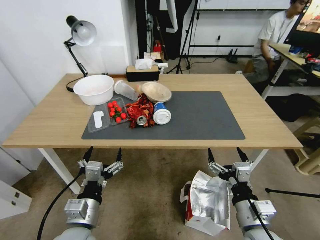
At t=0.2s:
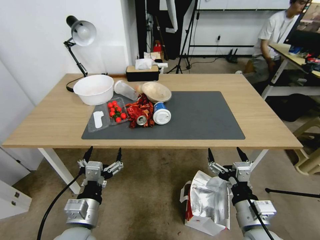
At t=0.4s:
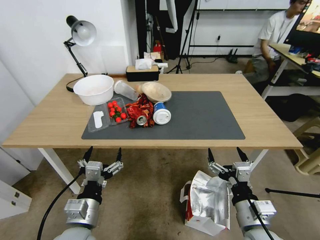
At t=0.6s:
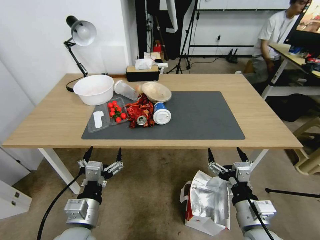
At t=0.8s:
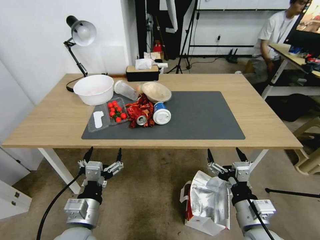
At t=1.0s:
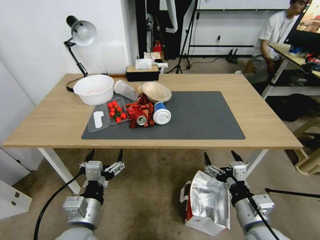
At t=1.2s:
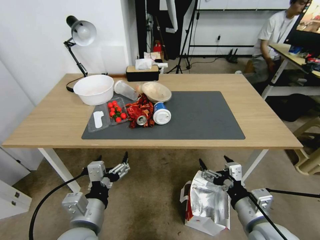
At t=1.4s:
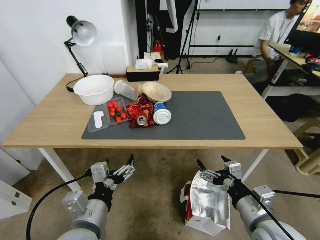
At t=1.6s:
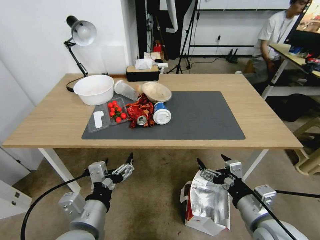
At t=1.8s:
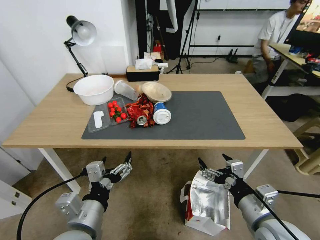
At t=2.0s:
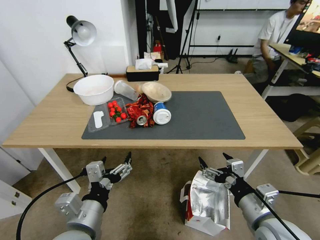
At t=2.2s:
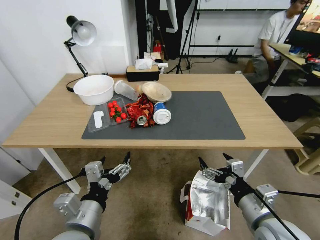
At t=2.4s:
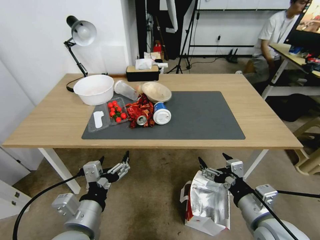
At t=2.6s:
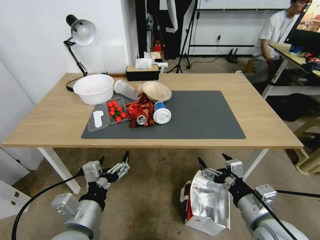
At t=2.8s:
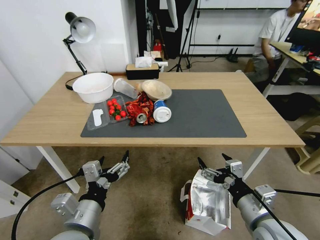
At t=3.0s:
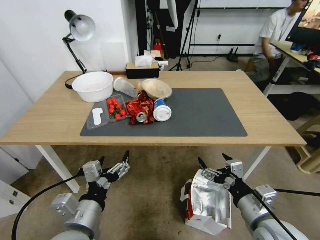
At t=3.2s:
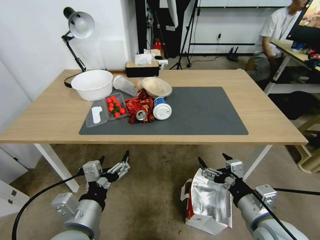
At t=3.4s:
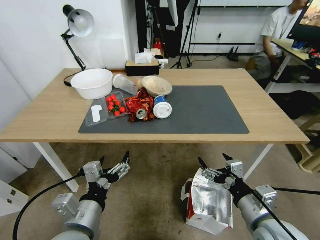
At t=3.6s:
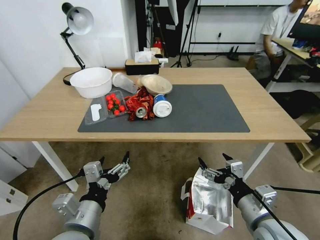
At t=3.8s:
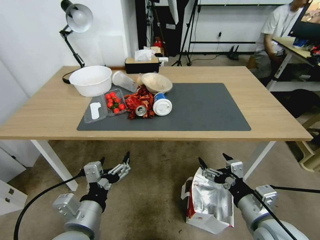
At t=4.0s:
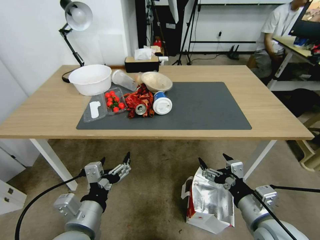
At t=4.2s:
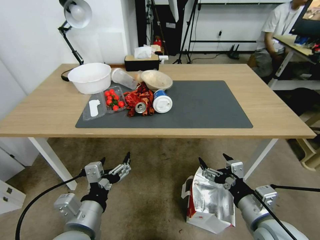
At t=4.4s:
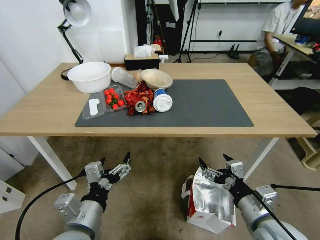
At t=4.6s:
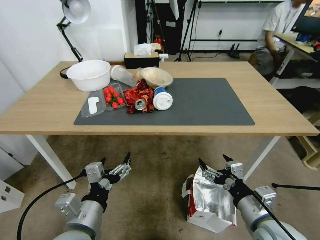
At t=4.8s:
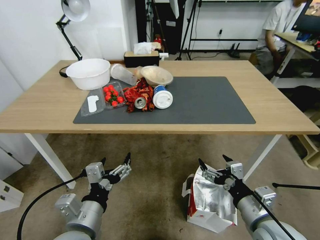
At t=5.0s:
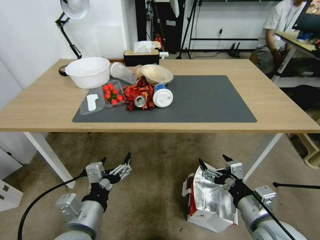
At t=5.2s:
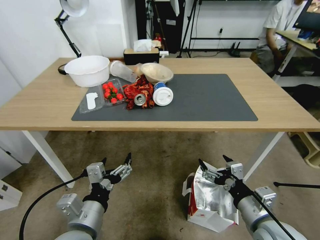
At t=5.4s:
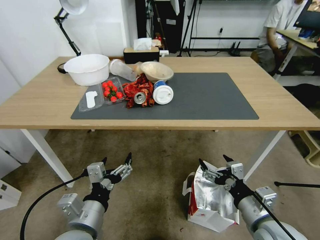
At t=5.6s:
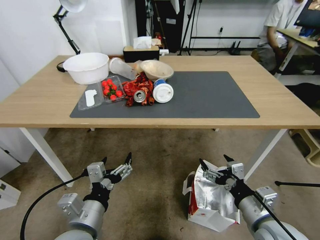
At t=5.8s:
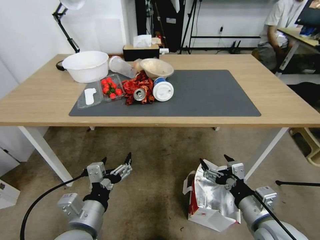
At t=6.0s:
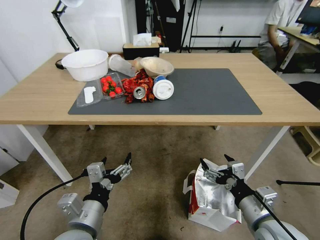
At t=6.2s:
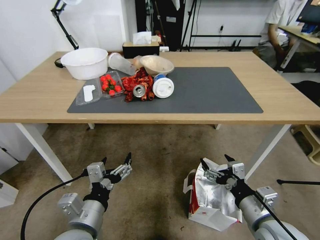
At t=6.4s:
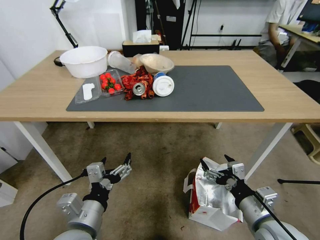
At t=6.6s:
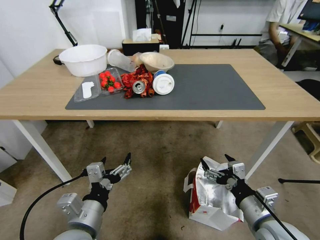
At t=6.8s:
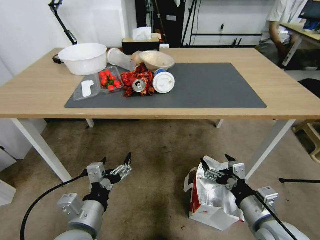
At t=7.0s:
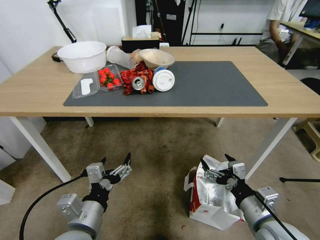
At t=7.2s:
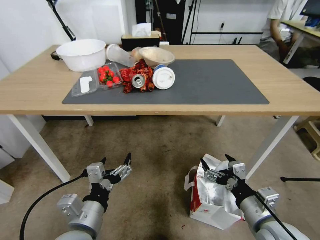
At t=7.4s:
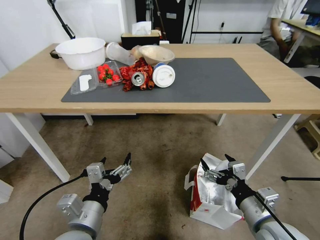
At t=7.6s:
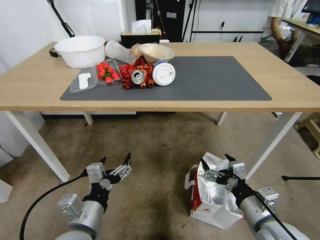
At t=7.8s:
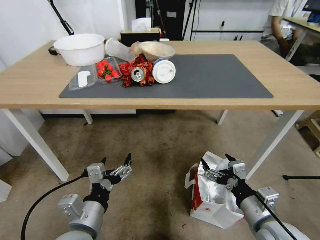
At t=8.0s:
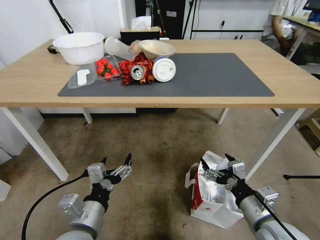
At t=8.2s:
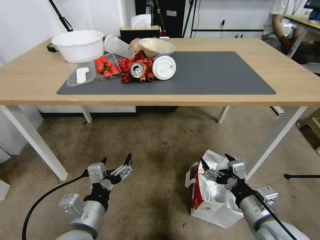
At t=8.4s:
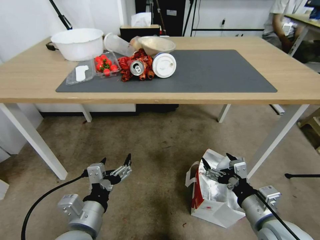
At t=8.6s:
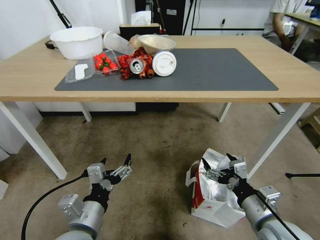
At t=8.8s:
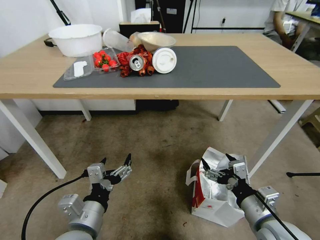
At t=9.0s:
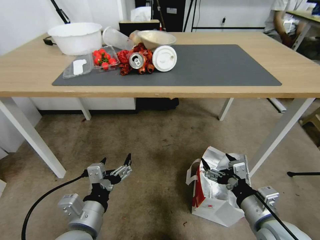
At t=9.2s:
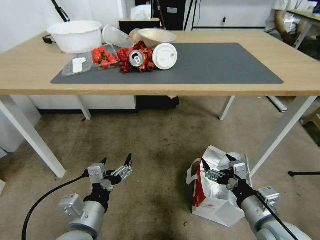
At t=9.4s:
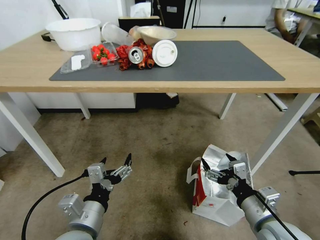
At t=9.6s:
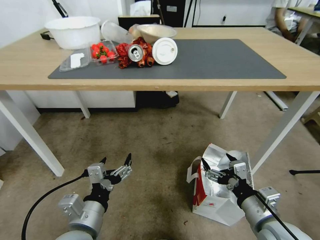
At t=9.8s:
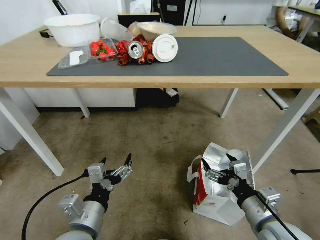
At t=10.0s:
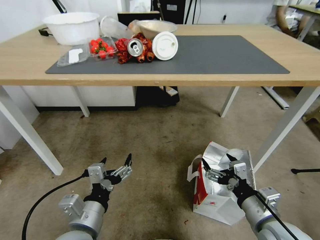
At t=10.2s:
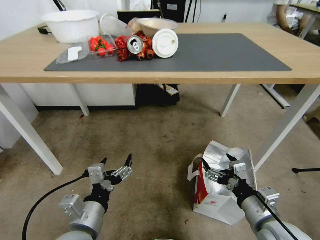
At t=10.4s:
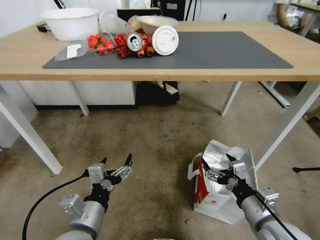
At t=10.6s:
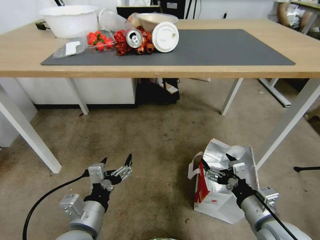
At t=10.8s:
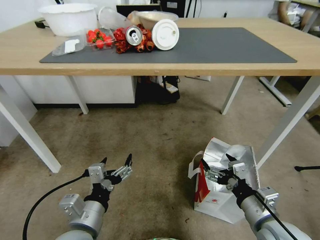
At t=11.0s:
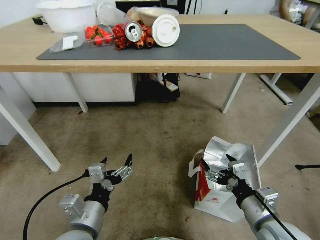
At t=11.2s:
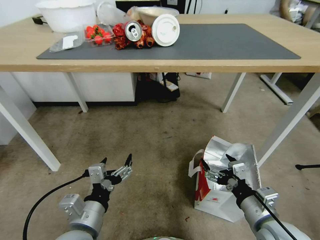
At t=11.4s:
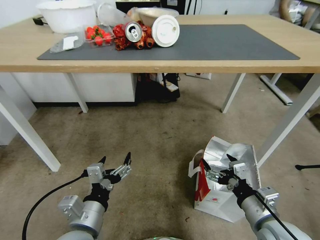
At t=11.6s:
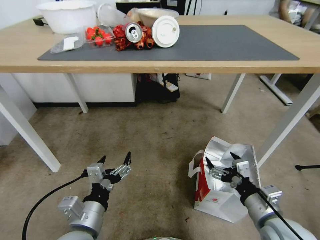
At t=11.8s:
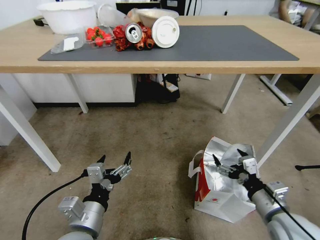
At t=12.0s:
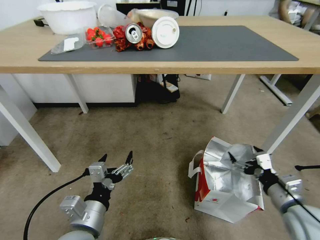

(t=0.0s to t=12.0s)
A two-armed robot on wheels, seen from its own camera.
Task of the whole recording: Pick up the food delivery bag from the floor and place it on the table.
t=10.4s - t=12.0s: The right gripper goes some 10 cm to the right.

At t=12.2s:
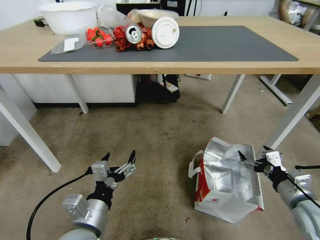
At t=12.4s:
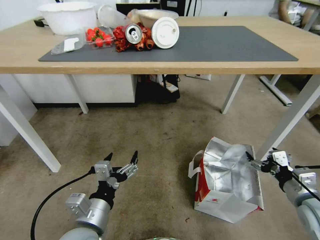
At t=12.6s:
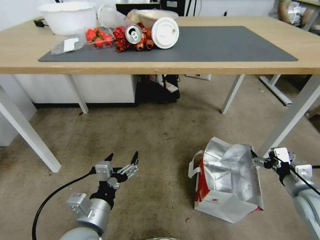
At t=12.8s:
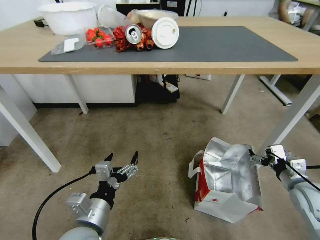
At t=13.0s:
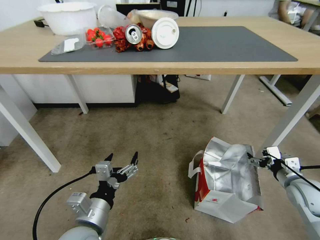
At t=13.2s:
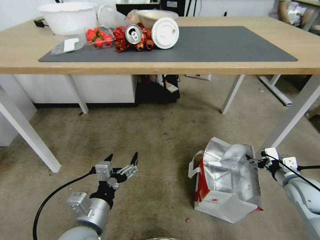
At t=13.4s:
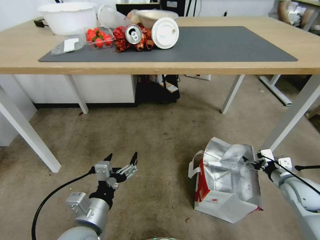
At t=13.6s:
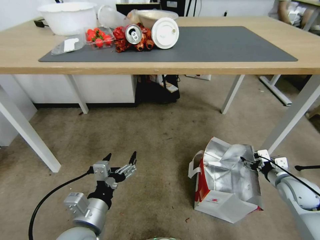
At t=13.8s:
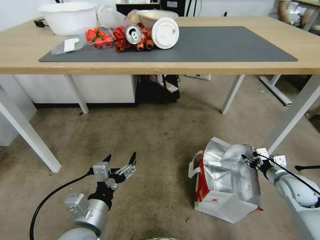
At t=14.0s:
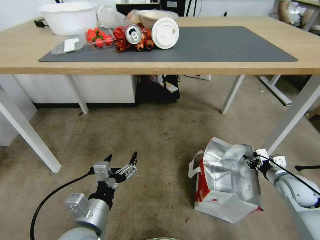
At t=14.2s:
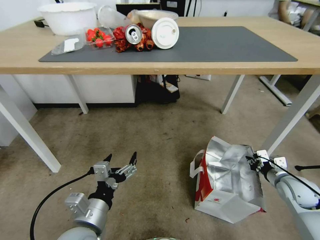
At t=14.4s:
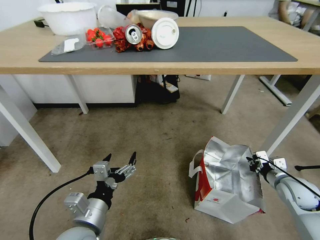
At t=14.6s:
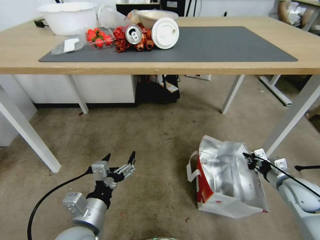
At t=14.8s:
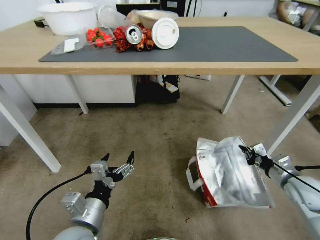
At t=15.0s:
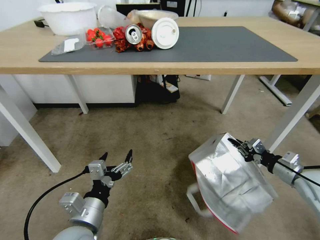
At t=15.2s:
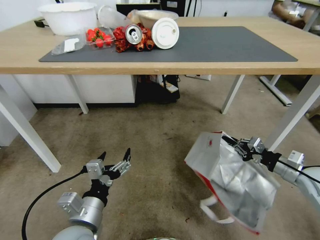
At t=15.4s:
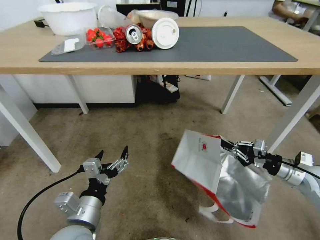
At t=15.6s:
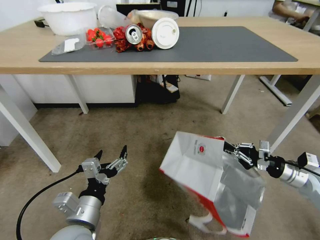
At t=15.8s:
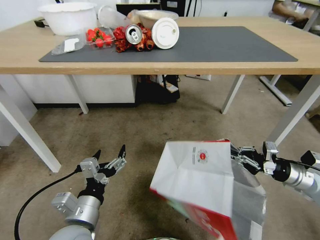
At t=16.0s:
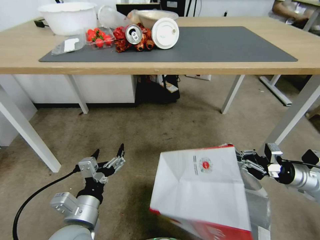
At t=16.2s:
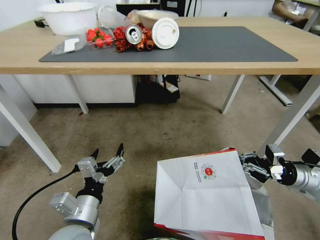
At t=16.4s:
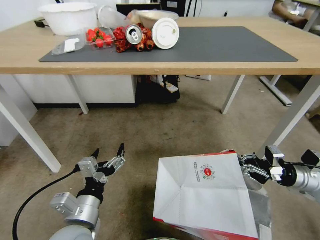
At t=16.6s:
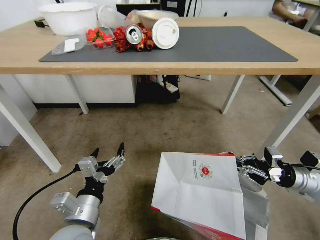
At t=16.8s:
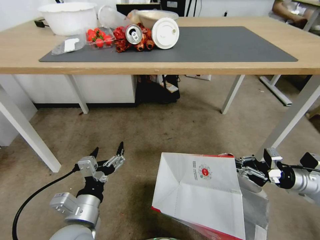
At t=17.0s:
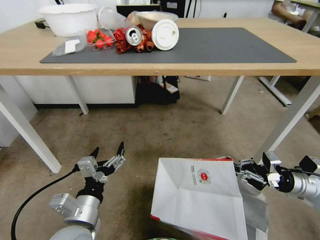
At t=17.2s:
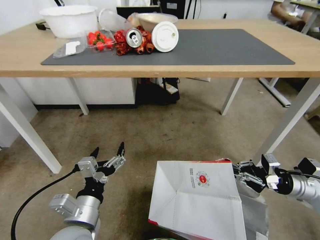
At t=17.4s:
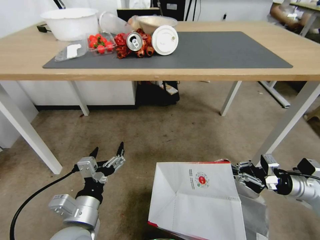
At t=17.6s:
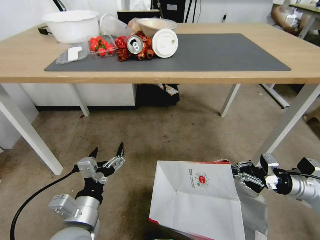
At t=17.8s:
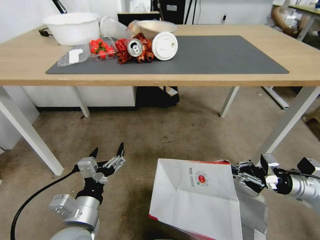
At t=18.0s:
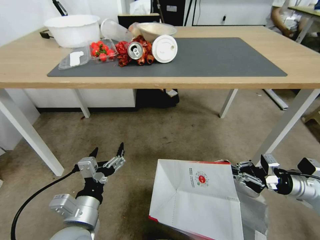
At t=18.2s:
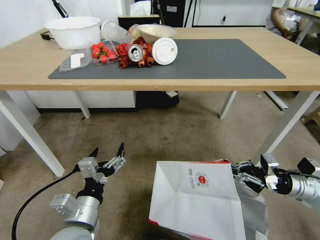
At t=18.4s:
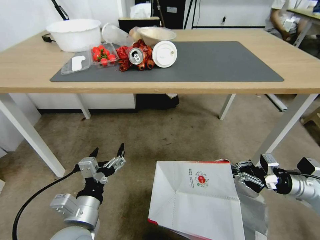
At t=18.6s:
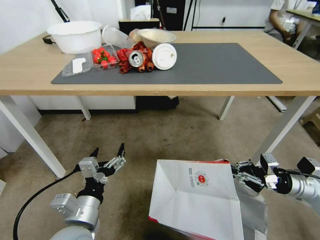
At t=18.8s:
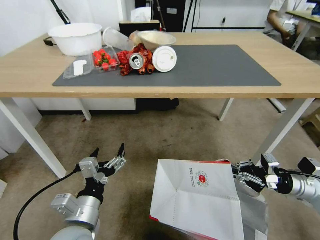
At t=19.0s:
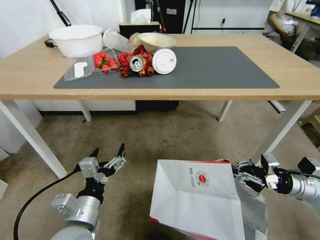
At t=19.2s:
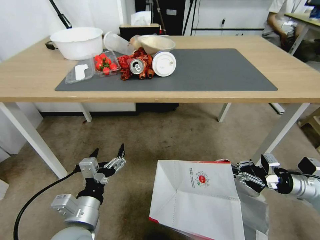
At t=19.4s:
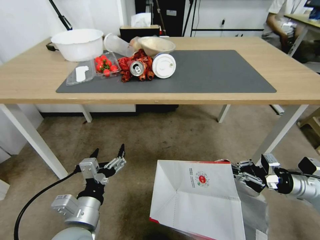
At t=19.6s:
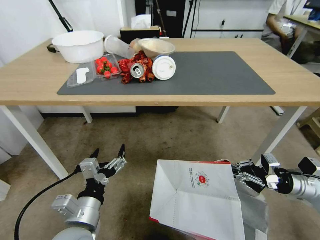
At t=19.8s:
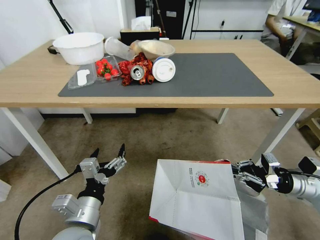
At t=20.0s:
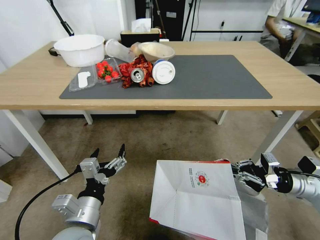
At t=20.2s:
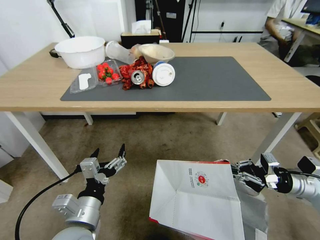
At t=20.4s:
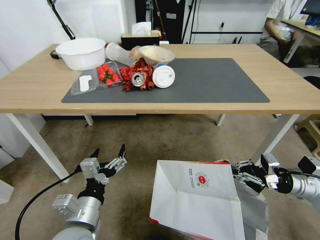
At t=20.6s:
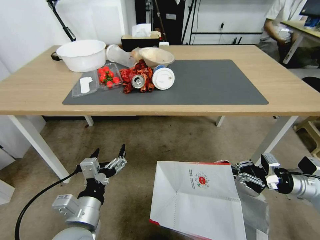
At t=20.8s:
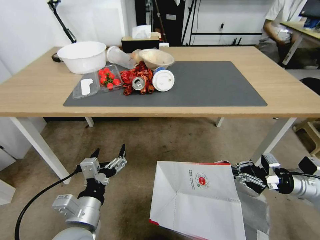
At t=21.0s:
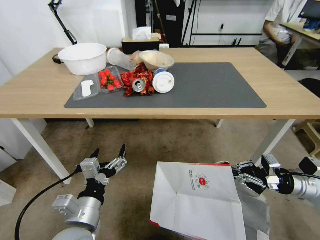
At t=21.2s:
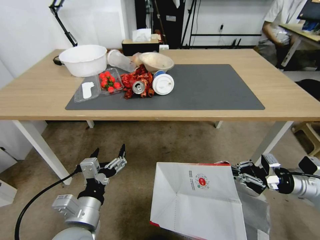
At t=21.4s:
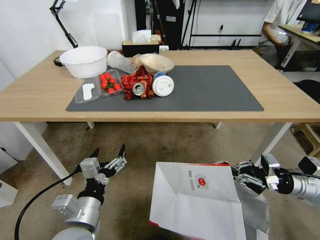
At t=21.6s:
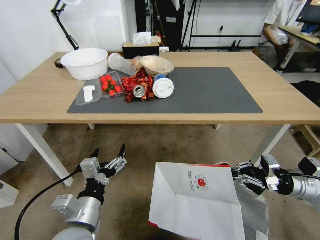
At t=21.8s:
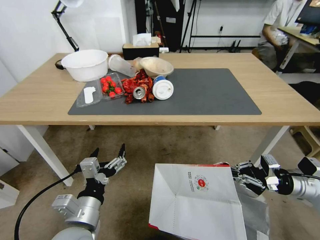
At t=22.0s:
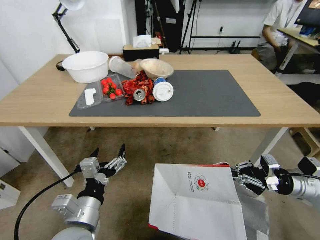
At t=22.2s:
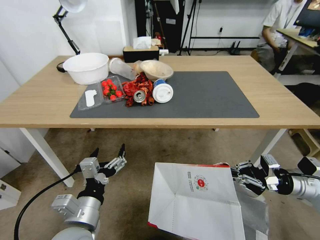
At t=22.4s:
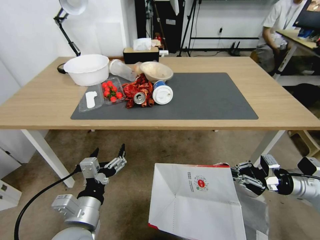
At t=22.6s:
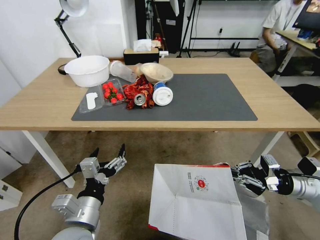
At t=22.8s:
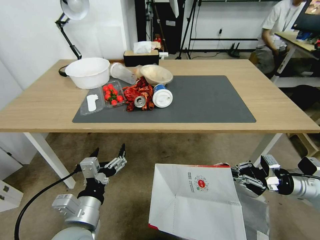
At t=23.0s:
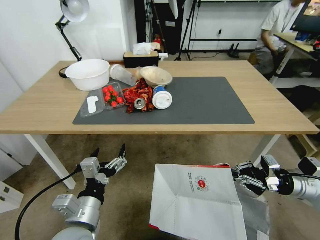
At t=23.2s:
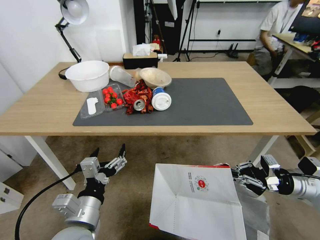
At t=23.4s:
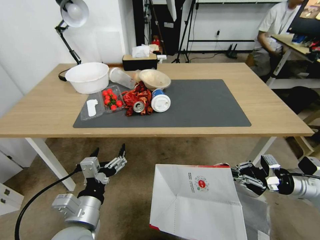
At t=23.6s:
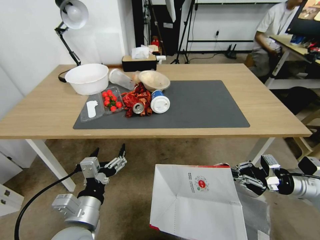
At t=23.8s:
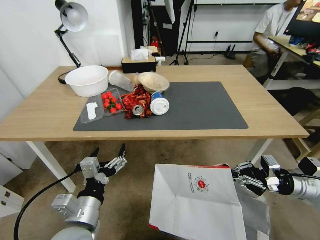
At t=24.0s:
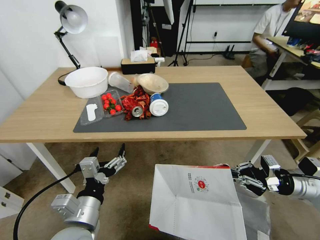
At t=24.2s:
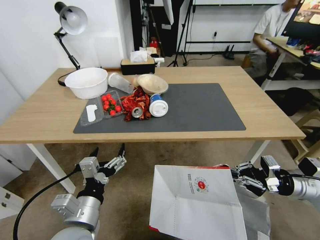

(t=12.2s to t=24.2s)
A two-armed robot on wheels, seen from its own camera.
Task of the whole recording: Pick up the food delivery bag from the floor and place it on the table.
t=12.2s - t=13.8s: The right gripper shifts roughly 15 cm forward, downward and to the right, and closes up.
t=13.8s - t=15.2s: The right gripper moves upward, some 5 cm, and closes.
